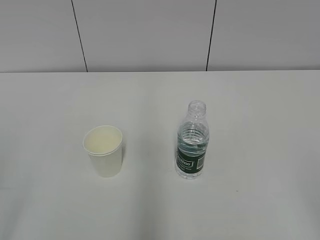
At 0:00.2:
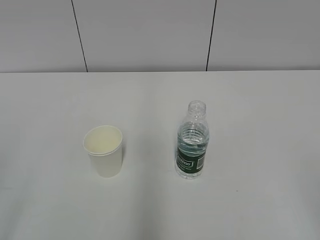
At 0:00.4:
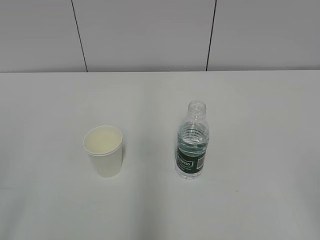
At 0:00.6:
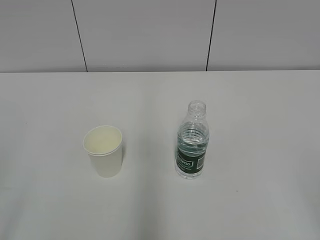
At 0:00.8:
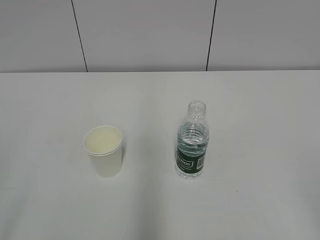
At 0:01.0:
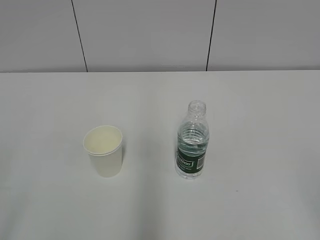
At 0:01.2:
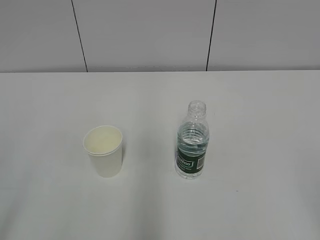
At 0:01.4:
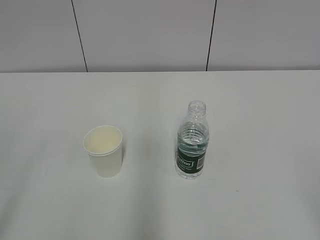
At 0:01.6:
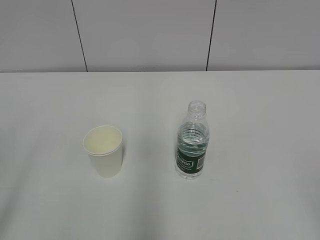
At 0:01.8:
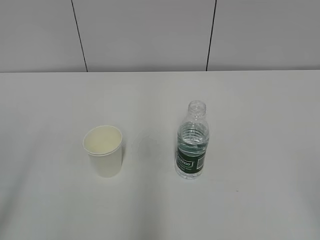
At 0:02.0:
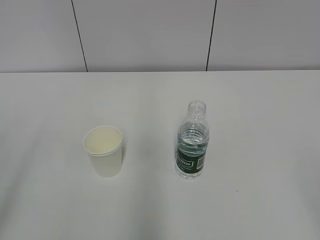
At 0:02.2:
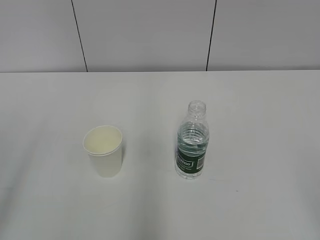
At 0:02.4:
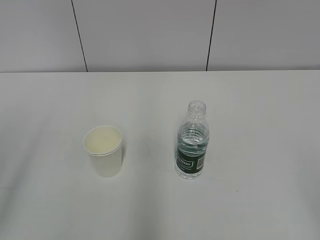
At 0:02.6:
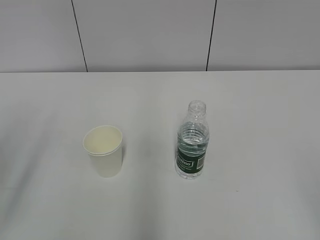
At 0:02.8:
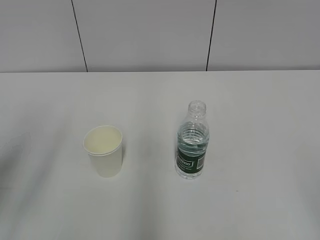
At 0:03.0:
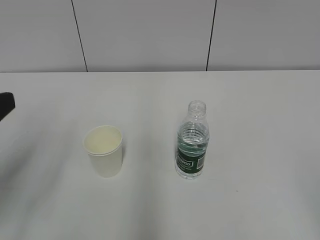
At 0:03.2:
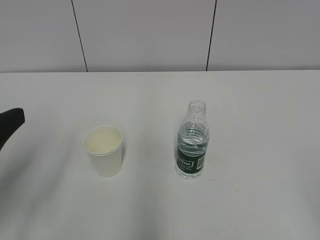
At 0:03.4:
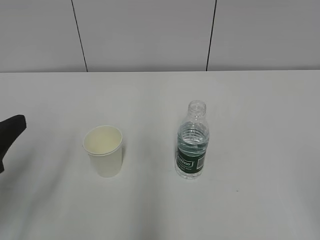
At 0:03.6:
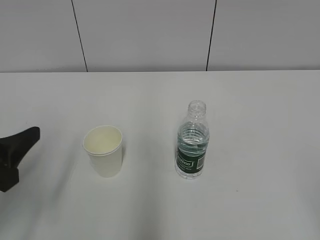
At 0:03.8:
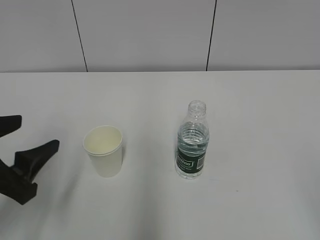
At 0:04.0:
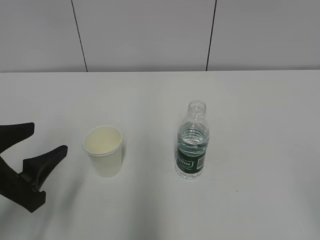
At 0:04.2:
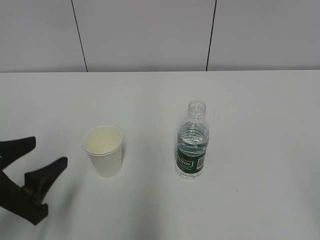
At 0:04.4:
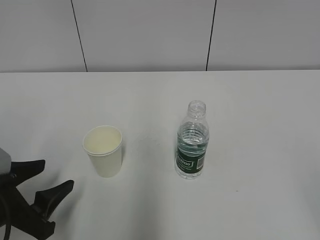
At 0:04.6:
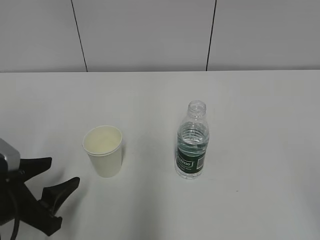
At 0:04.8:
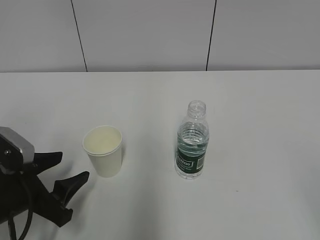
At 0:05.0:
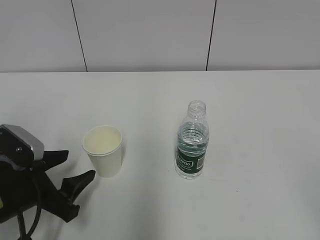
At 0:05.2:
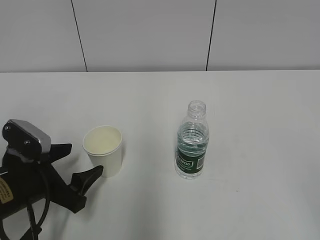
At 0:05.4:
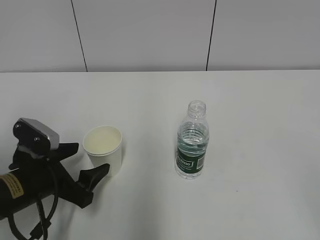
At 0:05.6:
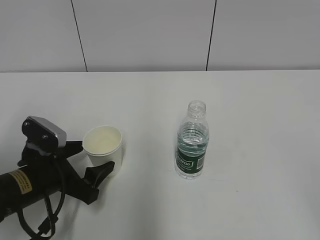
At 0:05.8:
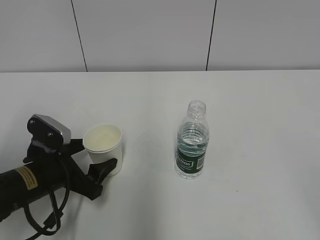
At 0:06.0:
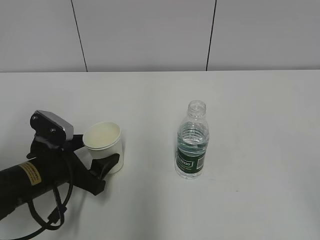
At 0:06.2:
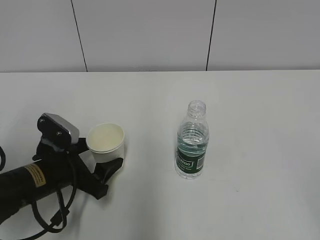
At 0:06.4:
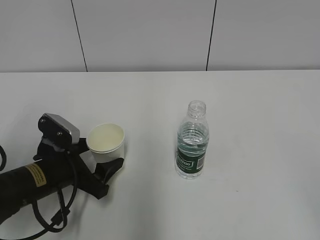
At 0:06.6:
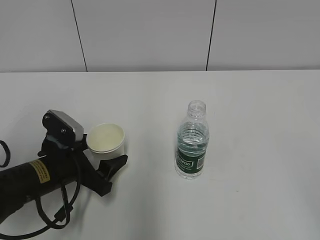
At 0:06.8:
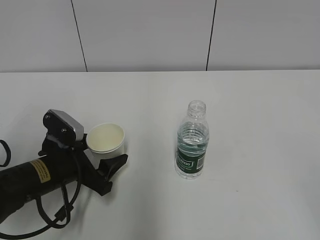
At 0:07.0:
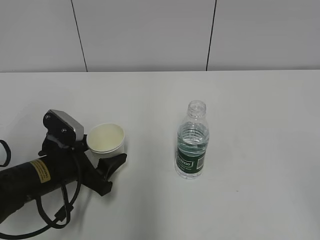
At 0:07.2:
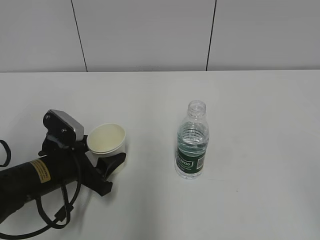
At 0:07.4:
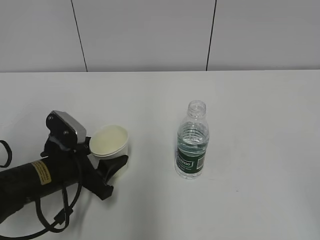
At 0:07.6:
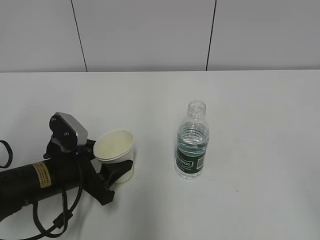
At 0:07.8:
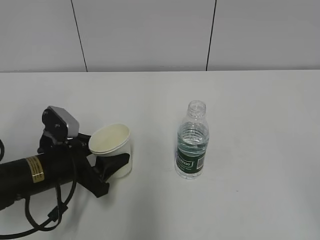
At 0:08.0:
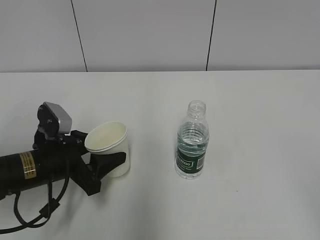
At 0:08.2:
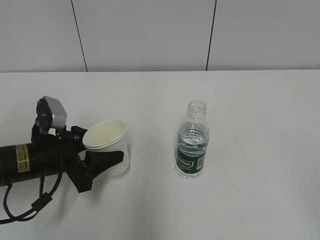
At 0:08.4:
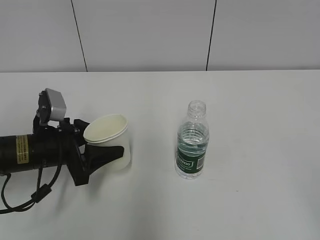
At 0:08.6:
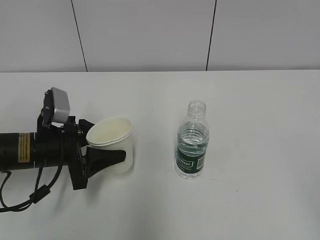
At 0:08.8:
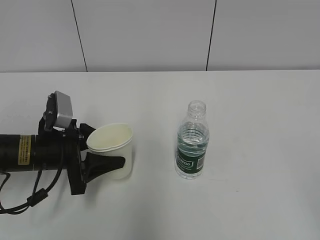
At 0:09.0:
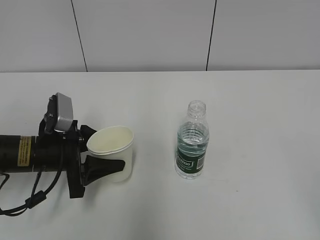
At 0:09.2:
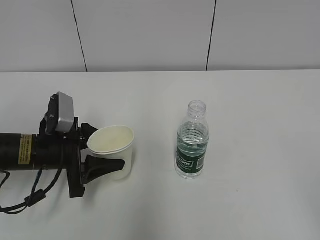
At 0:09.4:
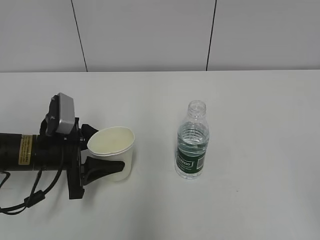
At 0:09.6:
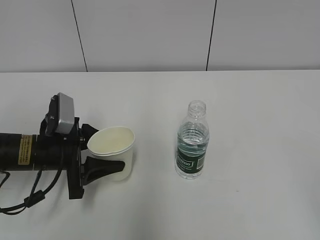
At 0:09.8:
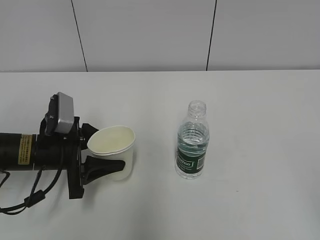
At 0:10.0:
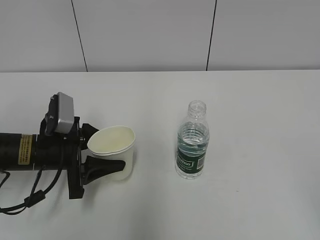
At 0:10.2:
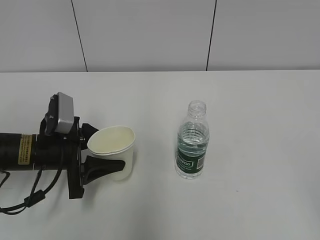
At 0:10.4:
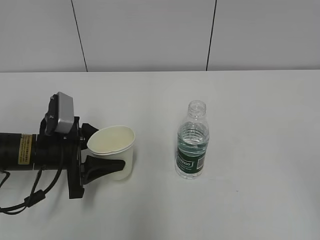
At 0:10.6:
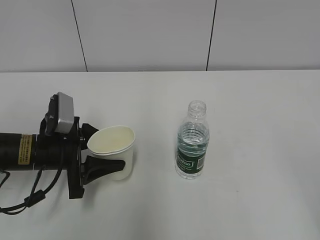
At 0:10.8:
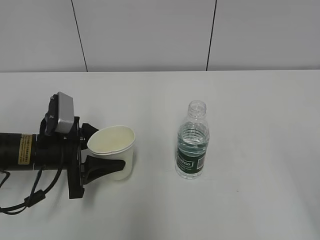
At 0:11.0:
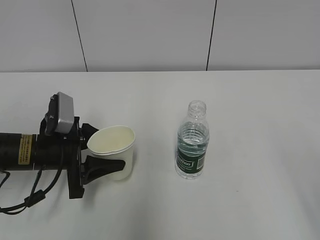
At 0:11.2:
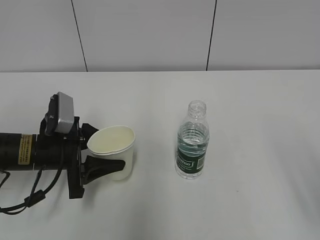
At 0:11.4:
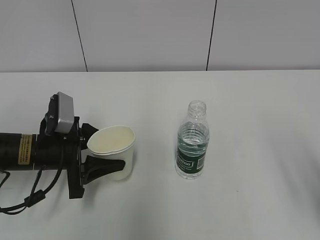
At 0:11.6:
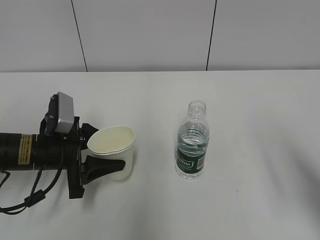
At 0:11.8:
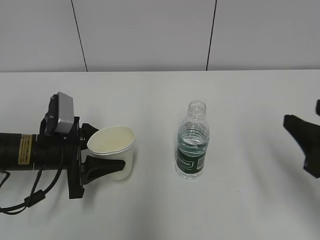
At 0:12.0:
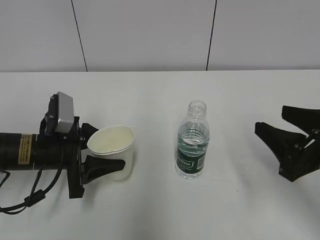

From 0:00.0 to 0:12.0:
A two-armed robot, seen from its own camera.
Step, from 0:00.0 to 0:06.0: Grab the paper cup with the left hand.
From 0:01.6 to 0:03.0: The left gripper goes some 15 cm forward.
From 0:03.0 to 0:04.4: The left gripper moves downward, some 15 cm.
From 0:04.4 to 0:06.0: The left gripper goes some 10 cm forward, and opens.
From 0:06.0 to 0:07.6: The left gripper closes its fingers.
From 0:09.0 to 0:10.4: The grippers move only a little.
From 0:10.4 to 0:12.0: The right gripper goes roughly 25 cm forward and downward.

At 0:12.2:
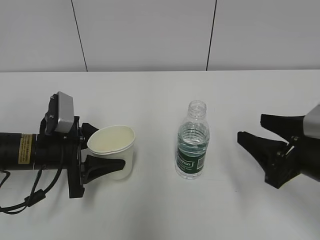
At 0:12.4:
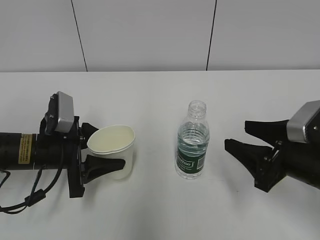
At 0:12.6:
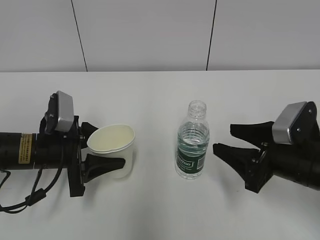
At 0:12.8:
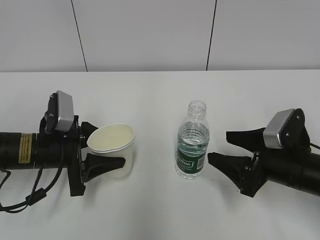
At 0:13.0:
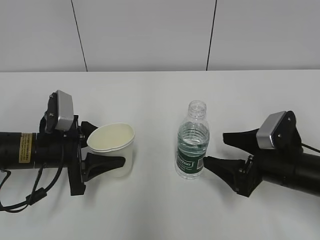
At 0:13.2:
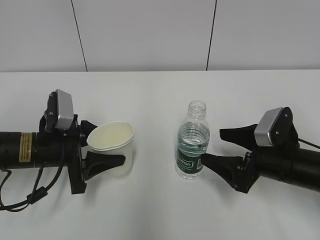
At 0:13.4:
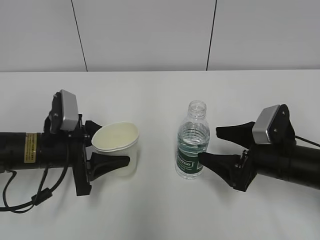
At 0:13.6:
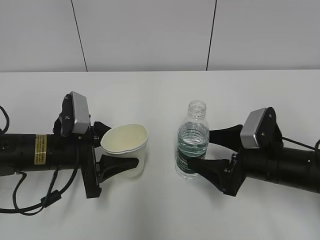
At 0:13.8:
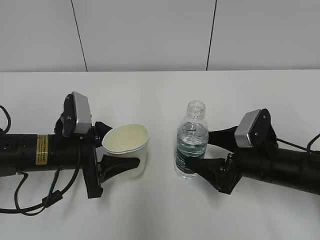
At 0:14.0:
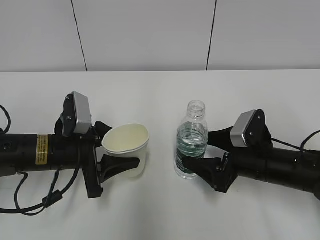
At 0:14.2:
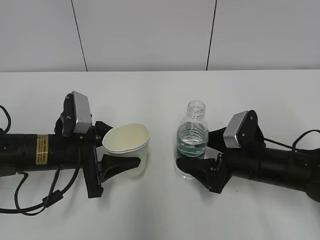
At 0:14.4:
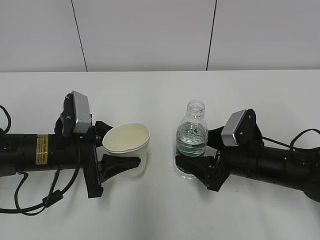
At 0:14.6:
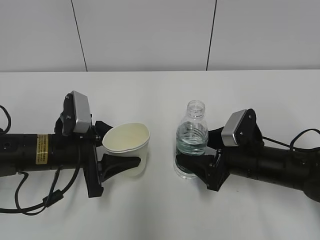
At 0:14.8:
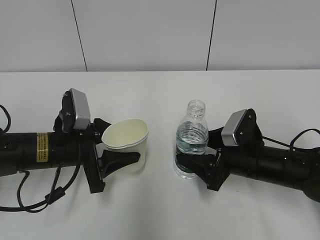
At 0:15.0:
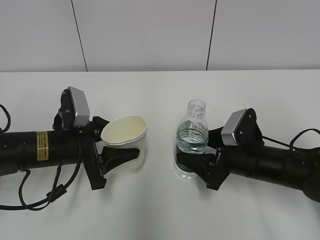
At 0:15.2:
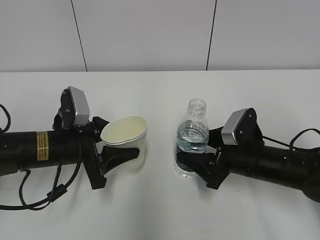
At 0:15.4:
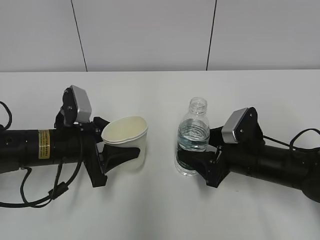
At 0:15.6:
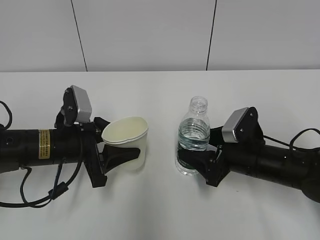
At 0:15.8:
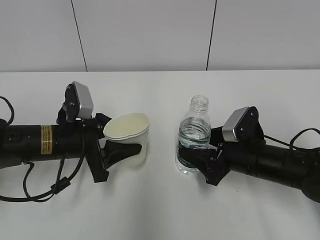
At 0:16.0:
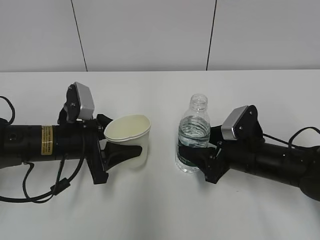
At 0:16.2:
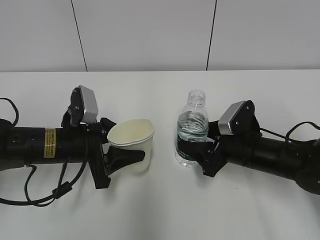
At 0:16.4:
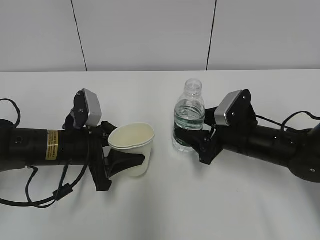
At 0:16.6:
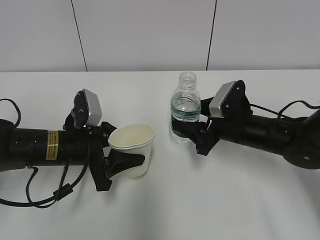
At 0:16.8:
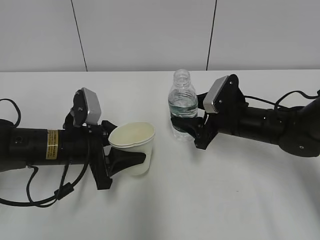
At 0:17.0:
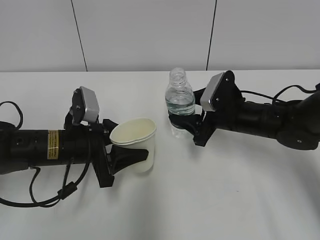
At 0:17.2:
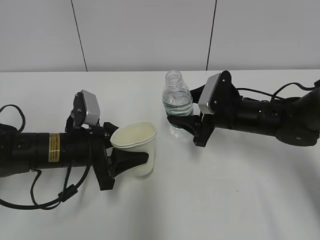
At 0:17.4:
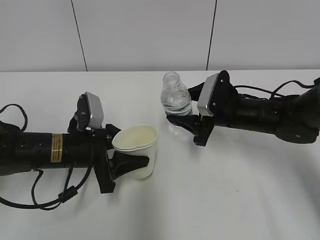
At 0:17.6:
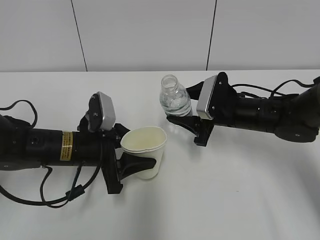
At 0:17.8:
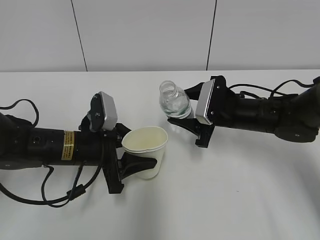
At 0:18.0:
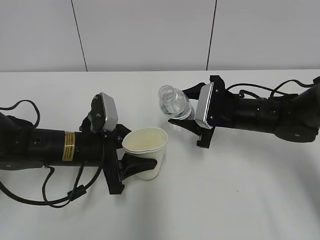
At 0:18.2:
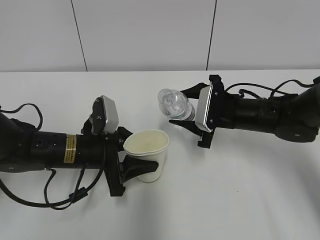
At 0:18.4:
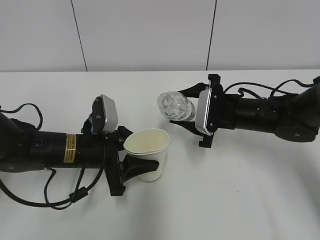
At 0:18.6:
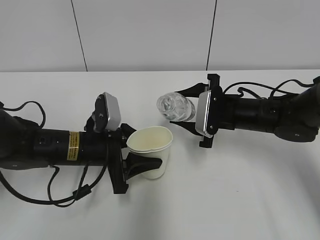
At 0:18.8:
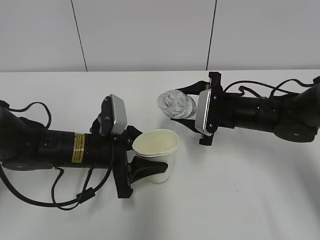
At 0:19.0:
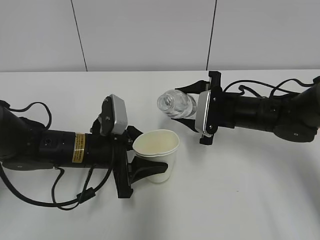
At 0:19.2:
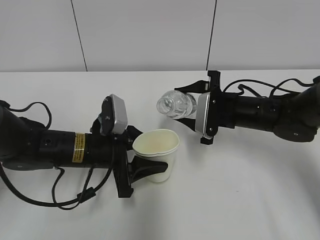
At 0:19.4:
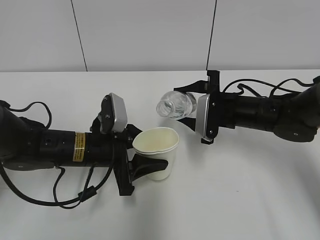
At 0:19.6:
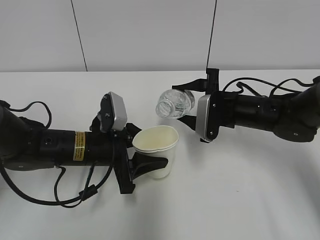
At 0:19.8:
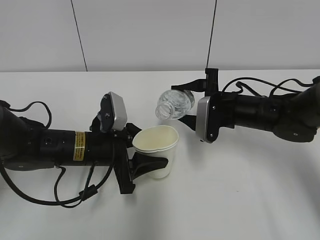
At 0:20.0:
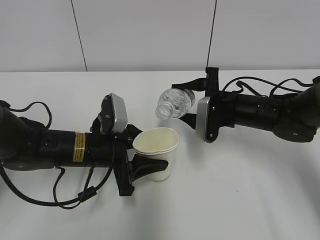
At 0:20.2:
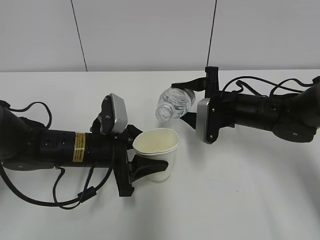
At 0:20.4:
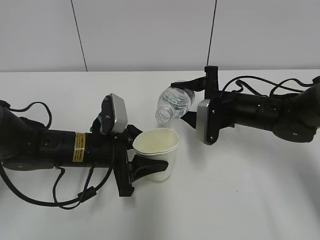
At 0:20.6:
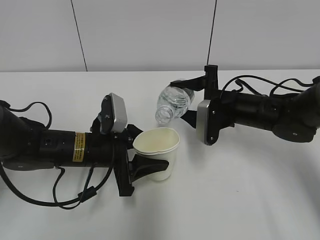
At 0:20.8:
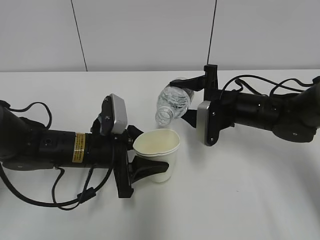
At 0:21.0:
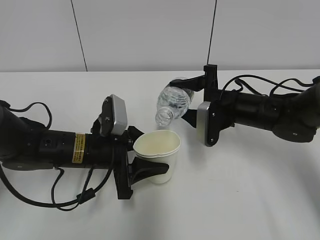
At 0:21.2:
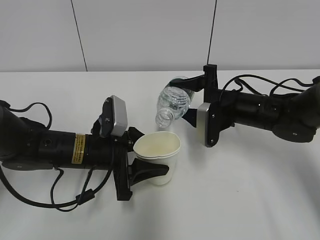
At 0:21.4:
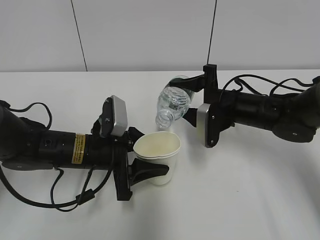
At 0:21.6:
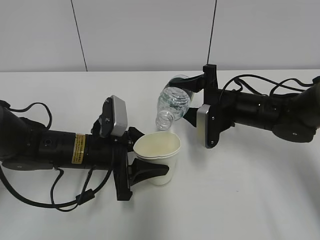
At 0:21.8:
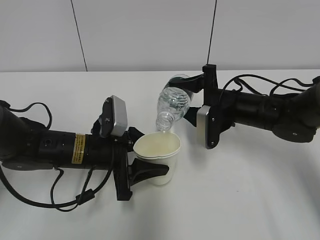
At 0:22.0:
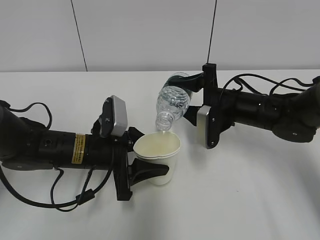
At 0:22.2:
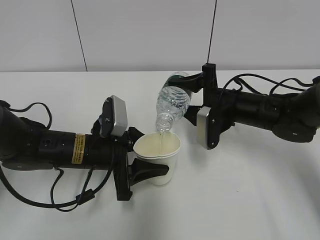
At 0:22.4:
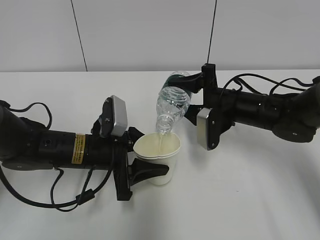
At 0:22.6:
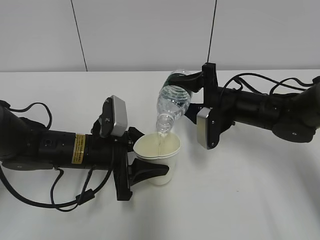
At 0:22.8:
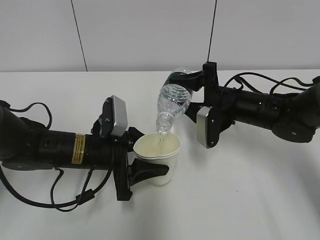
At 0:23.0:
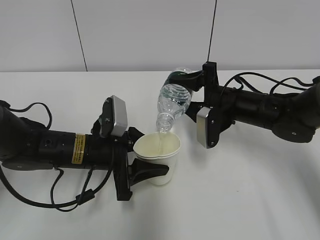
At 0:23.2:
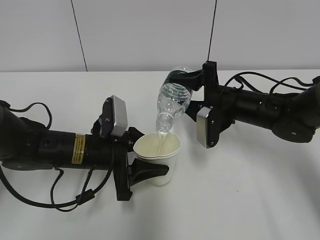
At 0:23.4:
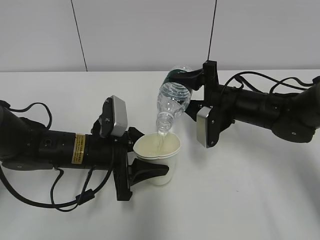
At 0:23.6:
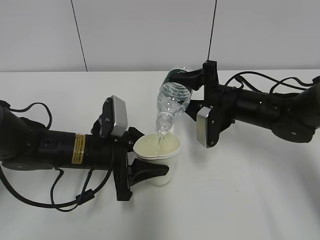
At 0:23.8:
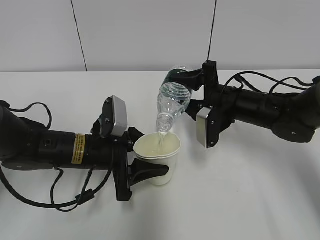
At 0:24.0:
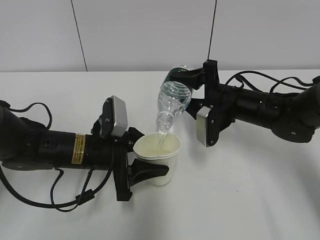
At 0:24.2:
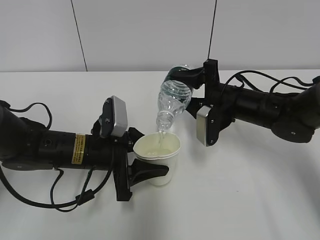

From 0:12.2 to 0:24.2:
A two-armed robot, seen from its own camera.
Step, from 0:13.4 to 0:17.8: Lift the paper cup with the left hand.
Step, from 0:18.0 to 0:21.4: Fill water with the left hand.
Step, from 0:18.0 to 0:21.4: Pour water with the right hand.
Step, from 0:21.6 to 0:22.0: Collect water with the right hand.
From 0:12.2 to 0:13.8: The right gripper goes some 10 cm downward and forward, and opens.
From 0:13.8 to 0:15.2: The right gripper closes up.
From 0:15.2 to 0:16.6: The right gripper shifts approximately 5 cm forward.
From 0:19.8 to 0:21.2: The grippers stay close to where they were, moving slightly.
From 0:21.2 to 0:22.6: The grippers move only a little.
From 0:22.6 to 0:24.2: The two grippers keep their place.
